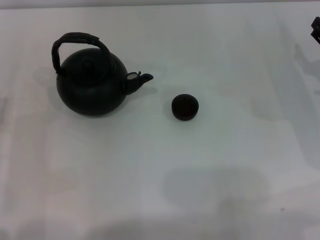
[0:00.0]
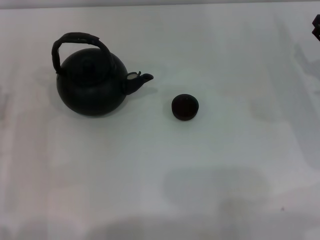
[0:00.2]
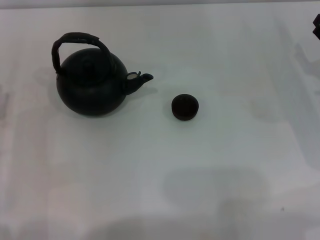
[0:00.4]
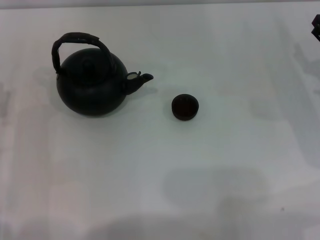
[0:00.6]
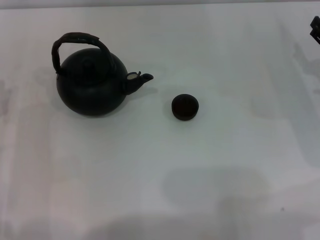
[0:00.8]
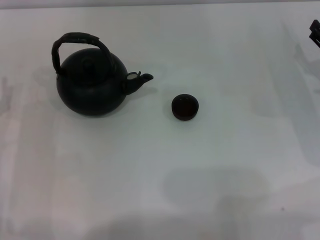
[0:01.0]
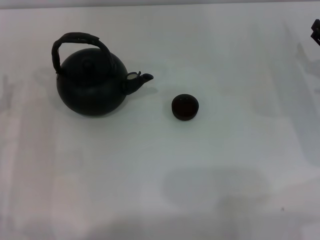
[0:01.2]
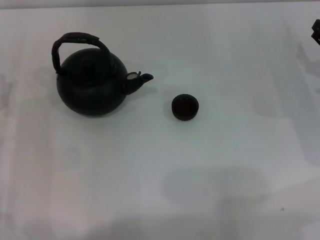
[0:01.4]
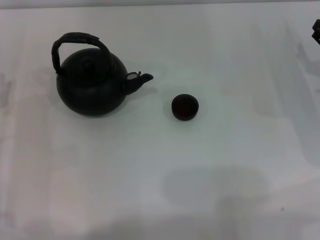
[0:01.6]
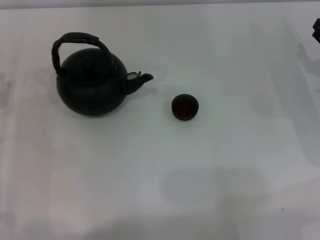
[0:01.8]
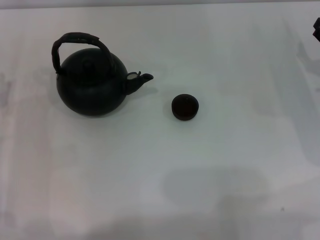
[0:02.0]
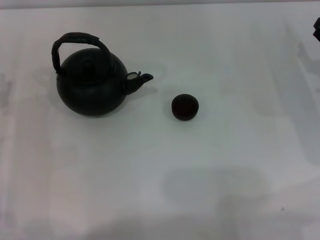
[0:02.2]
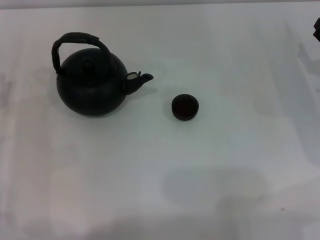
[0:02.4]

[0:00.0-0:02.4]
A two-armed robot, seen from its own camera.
Task of the whole recording: Grasp the handle of the teapot with one hand and pour tea into the teacup.
1.2 to 2.4 s: The two grippers keep their place.

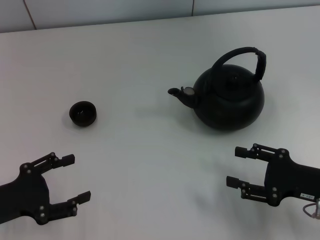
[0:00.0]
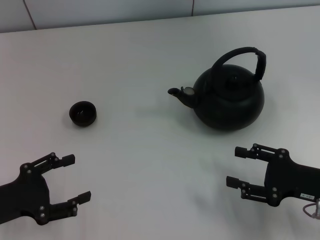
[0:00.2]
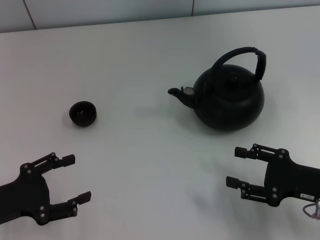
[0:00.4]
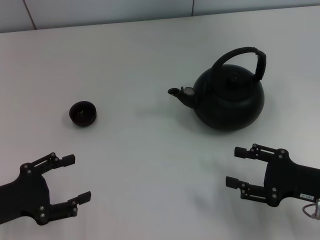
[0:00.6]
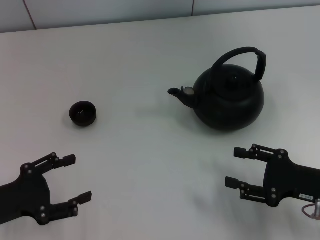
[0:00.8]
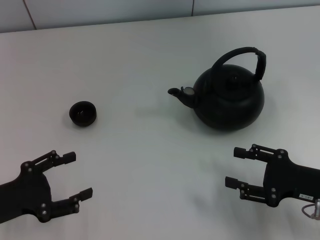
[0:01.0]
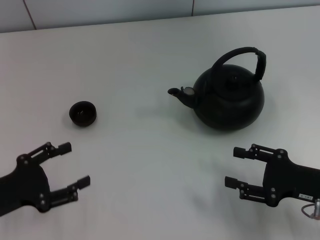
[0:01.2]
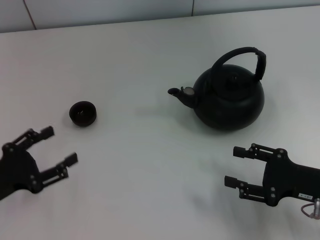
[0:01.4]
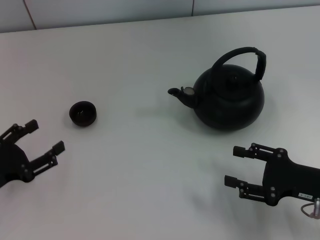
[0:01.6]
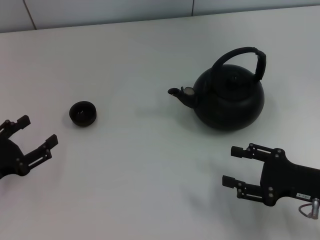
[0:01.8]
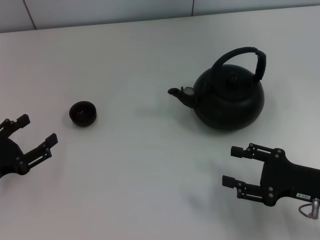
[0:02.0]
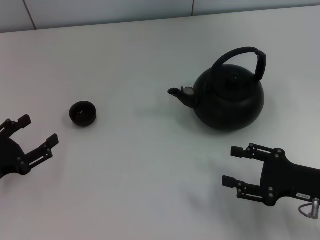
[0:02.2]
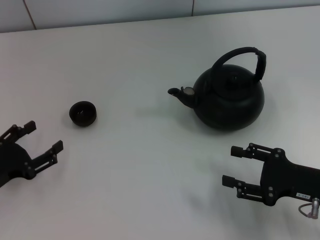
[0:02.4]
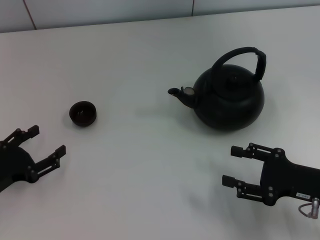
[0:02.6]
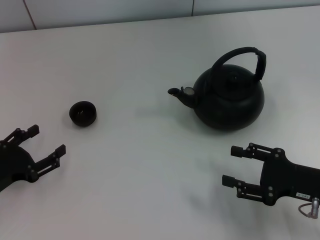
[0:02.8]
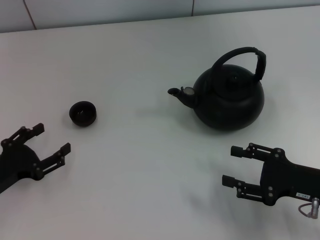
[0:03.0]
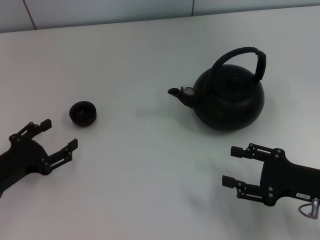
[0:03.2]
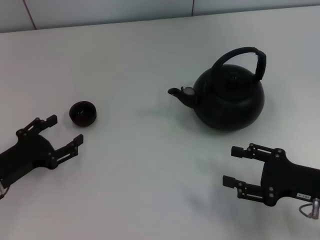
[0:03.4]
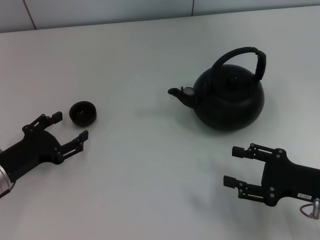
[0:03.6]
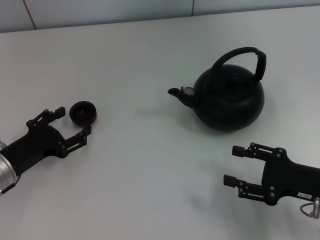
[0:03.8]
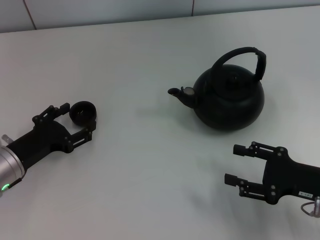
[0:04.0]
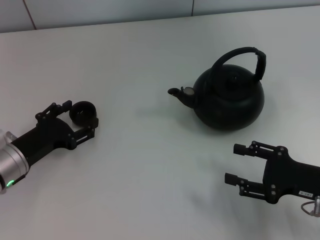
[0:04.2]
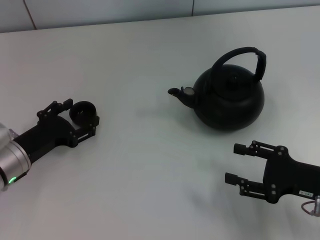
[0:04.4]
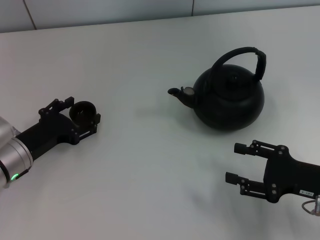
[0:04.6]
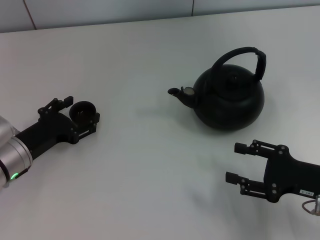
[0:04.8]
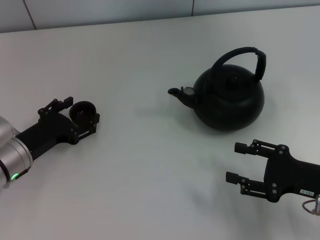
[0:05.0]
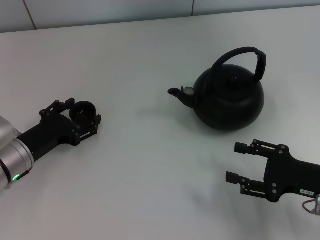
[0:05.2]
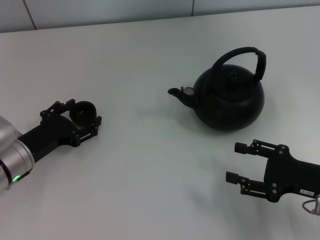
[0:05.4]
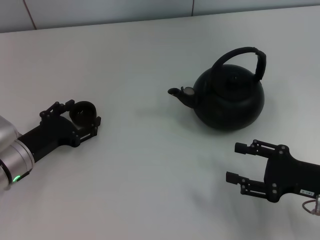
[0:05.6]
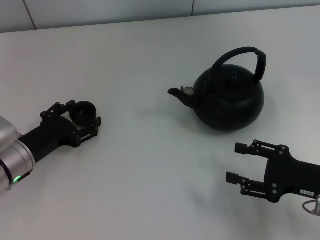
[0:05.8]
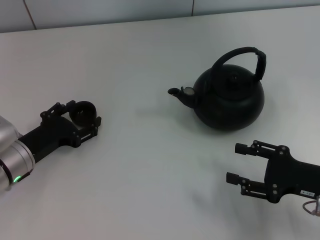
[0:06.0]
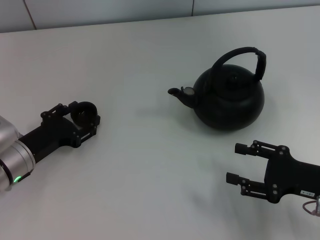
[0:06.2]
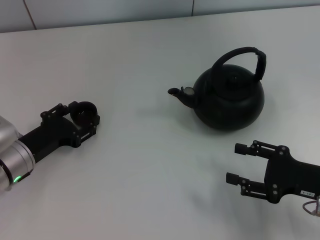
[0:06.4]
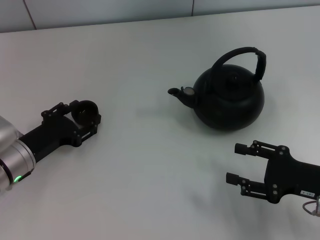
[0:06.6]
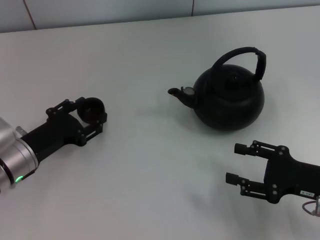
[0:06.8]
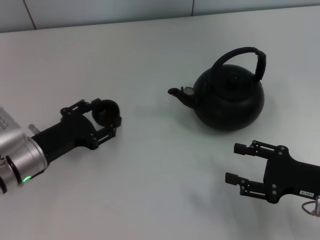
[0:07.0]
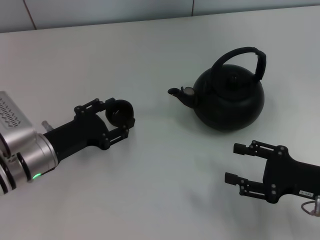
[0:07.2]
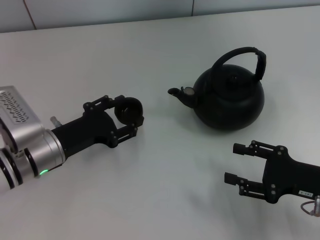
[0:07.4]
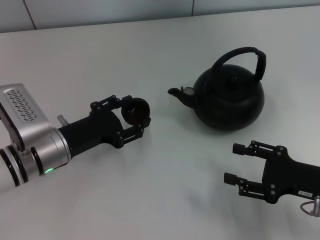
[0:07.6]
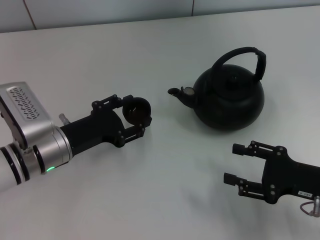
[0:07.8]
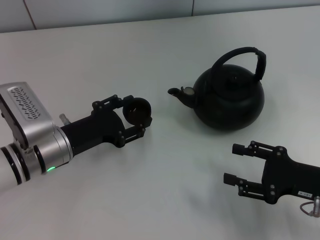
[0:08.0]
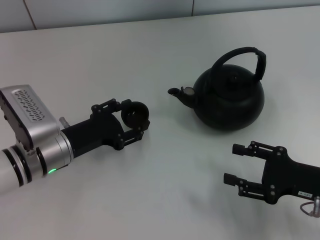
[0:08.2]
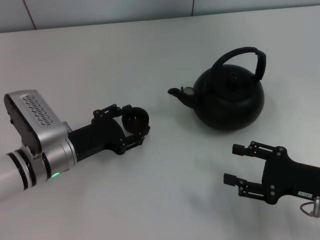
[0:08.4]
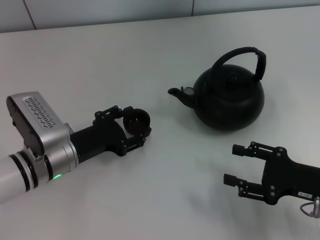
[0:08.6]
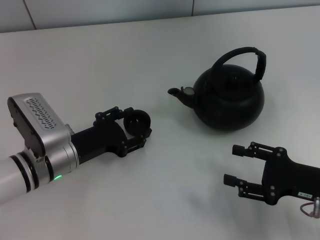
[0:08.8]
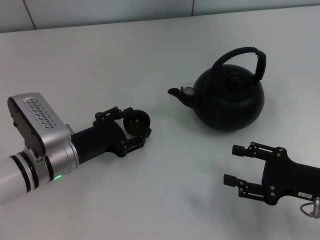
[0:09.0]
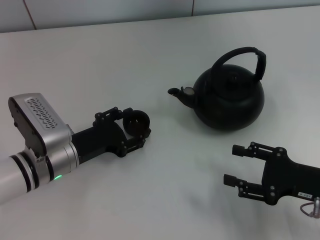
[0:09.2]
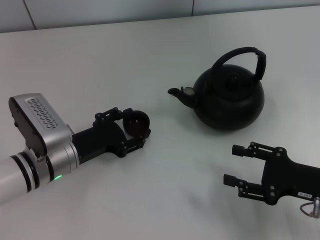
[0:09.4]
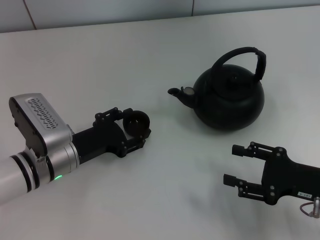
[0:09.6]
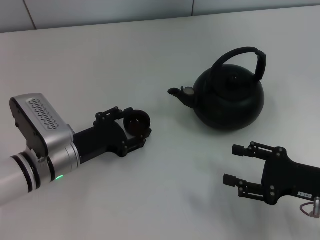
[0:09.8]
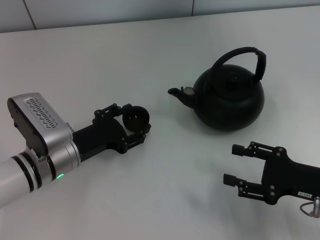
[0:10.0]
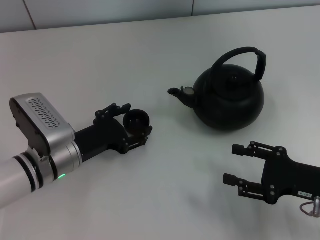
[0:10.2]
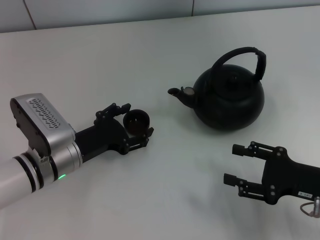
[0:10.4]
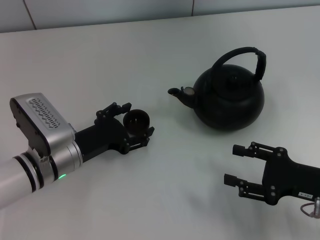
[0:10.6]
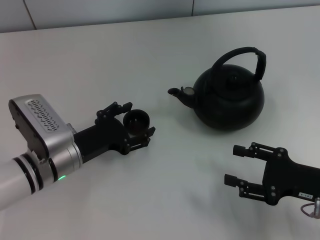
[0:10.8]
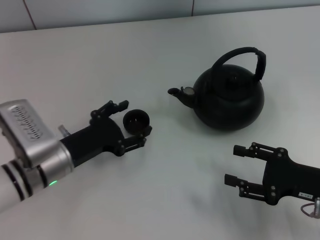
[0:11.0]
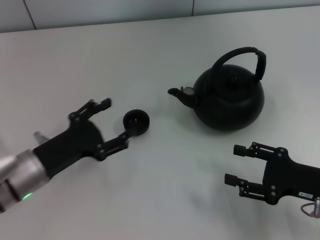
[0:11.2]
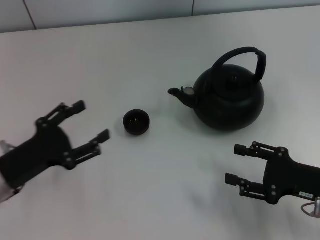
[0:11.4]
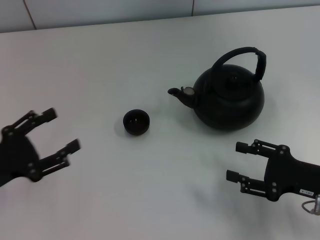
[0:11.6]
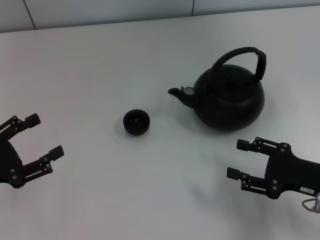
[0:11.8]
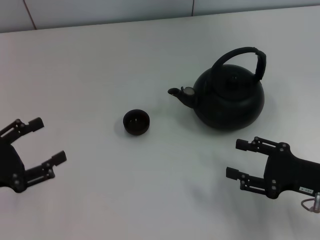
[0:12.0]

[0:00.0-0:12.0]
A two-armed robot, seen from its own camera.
Task of the whole recording: Grasp the handle of the teapot with one hand and pour tea into the teacup.
Step, 0.0 to 7.0 s: Pick up the teacup with the left gripper.
Step, 7.2 to 11.2 s: Place the teacup in the center of view with the left gripper.
1.6 to 3.0 s: There are only small adjustments of the grippers.
3.0 to 4.4 s: The left gripper is displaced forward and to the right by roughly 10 cm.
4.4 to 6.0 s: Both grippers stay put.
6.0 to 7.6 s: The left gripper heads to the right, covering approximately 5 cm, and closes up.
7.6 to 9.0 s: The grippers move only a little.
9.0 to 10.4 s: The left gripper opens.
10.4 to 12.0 s: The left gripper goes some 15 cm to the left and backward, and opens.

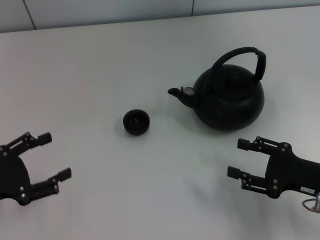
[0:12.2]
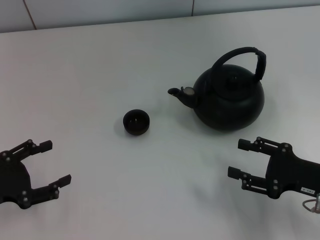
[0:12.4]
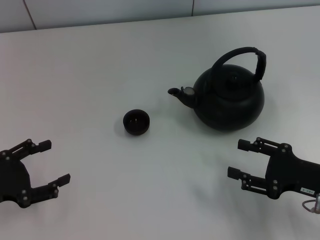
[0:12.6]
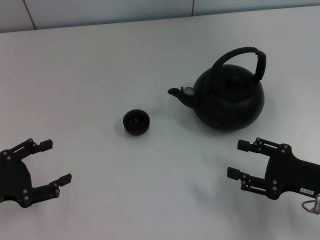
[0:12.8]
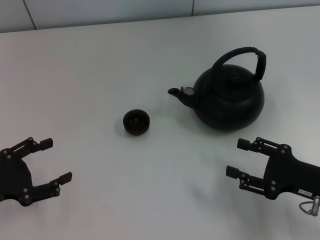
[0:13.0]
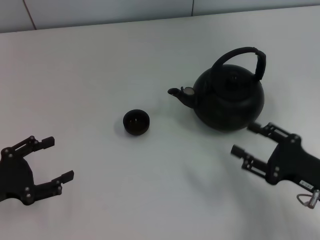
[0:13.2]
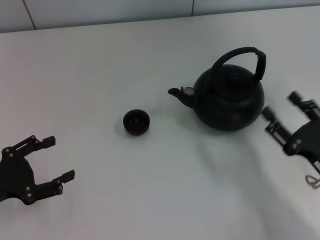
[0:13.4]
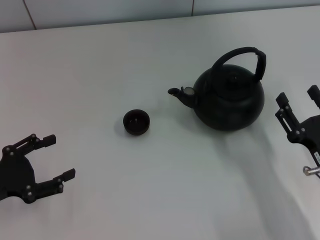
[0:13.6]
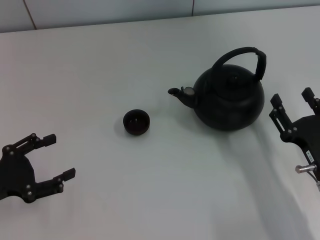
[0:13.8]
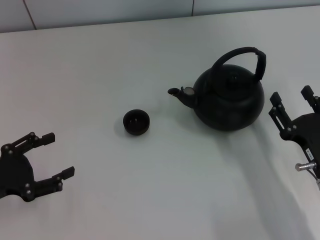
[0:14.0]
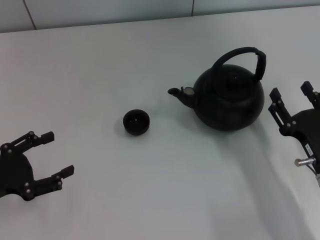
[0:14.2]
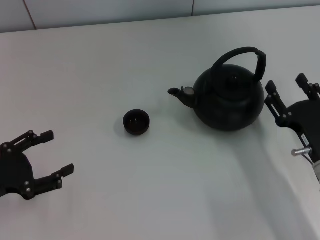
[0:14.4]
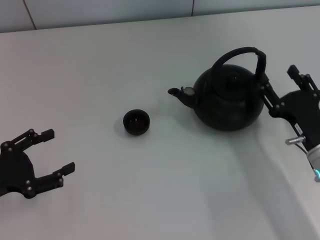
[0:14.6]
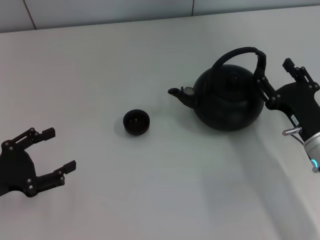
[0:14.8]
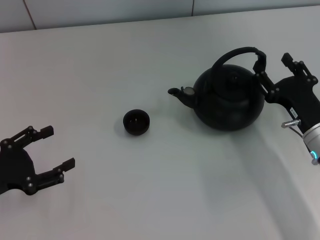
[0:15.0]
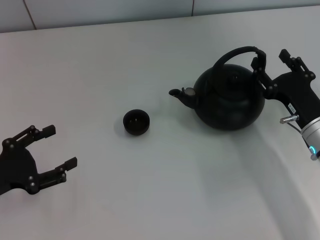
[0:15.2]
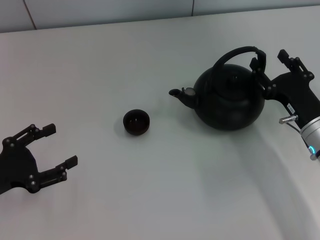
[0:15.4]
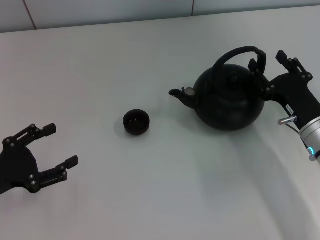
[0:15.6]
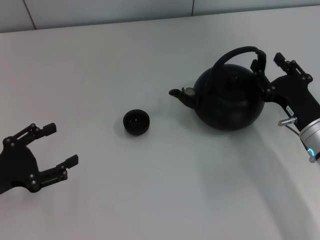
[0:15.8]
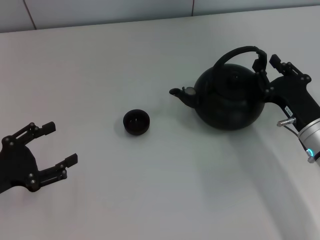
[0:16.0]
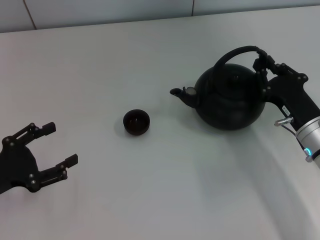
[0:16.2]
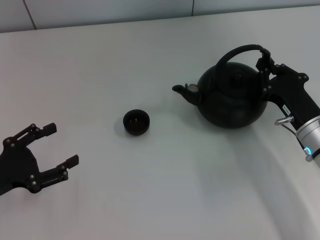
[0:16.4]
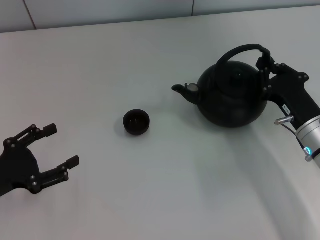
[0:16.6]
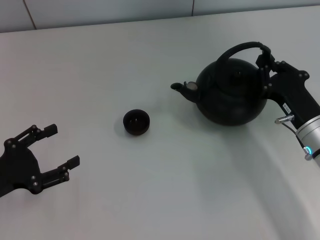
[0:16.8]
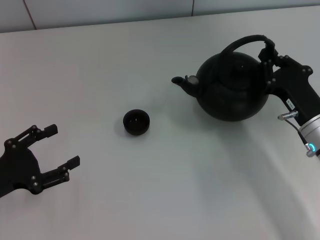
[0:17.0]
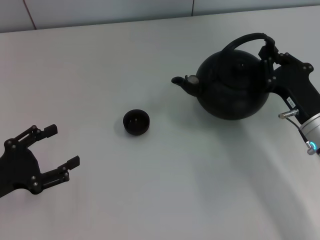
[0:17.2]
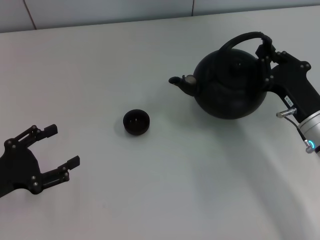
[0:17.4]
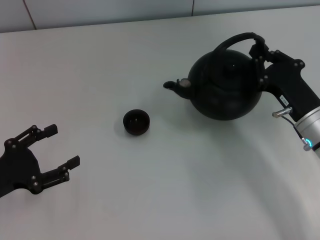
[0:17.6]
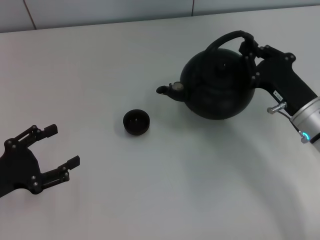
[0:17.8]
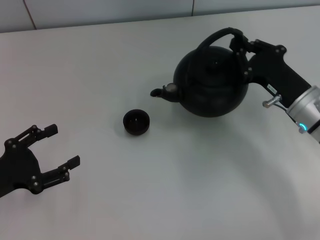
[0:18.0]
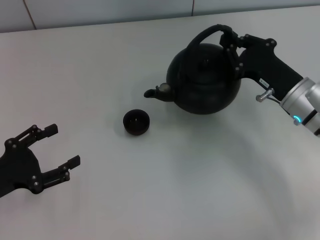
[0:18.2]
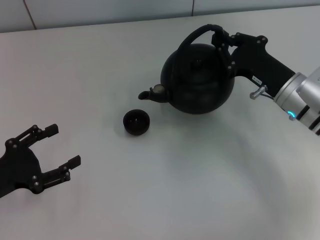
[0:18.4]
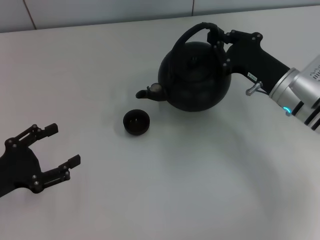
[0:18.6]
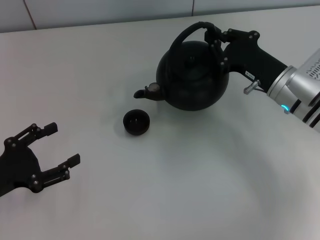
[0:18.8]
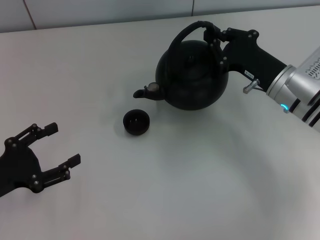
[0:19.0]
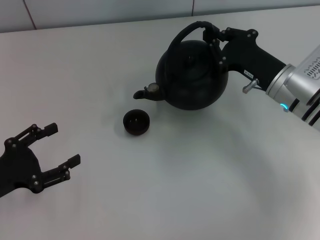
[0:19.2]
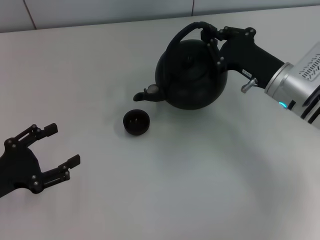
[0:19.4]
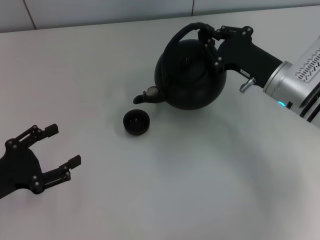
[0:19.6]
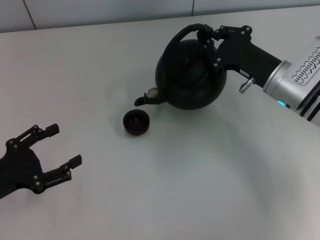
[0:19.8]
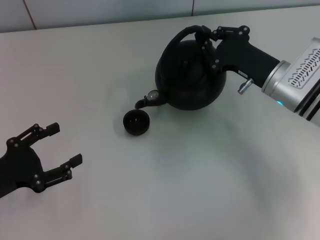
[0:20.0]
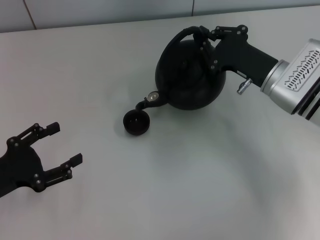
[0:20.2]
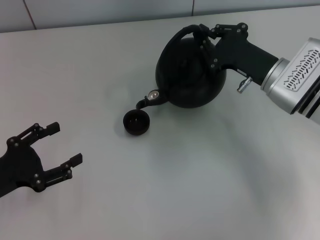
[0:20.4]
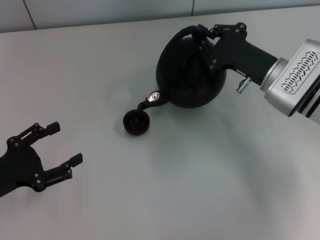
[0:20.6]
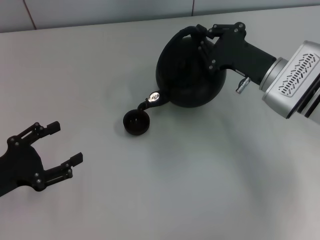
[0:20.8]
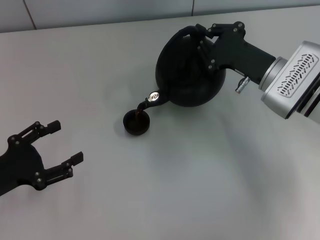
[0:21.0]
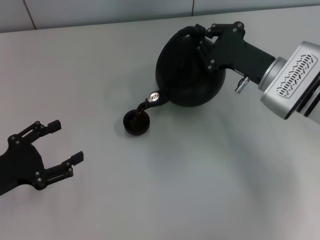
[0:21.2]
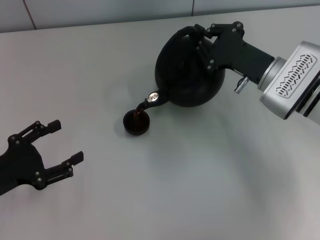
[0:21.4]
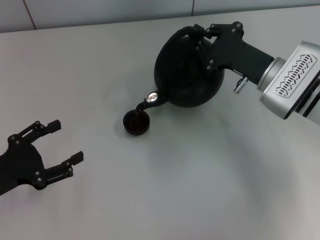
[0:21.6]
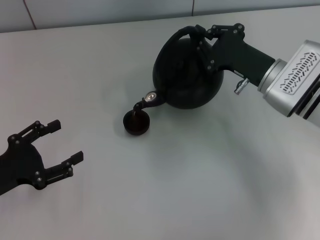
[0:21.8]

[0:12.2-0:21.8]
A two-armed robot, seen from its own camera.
Task of the whole recording: Grasp the handle of the teapot with one hand and pour tea into the teacup.
Step, 12.2 to 17.4 s: Pick up the teapot with the right gripper.
12.2 to 13.8 s: The right gripper shifts by about 5 cm.
13.8 to 15.4 s: The right gripper is displaced forward by some 10 cm.
15.4 to 17.0 s: The right gripper closes up.
17.0 to 18.6 s: The right gripper is displaced forward by some 5 cm.
18.6 to 20.2 s: There are only small adjustments of the grippers.
20.2 to 21.8 s: The grippers make only small movements.
